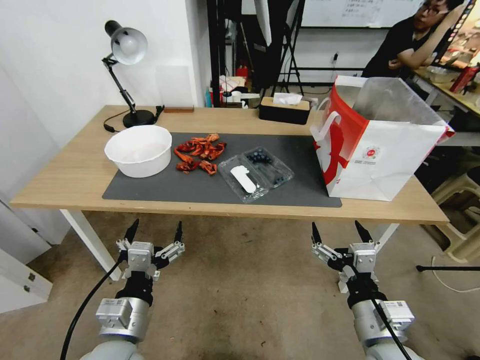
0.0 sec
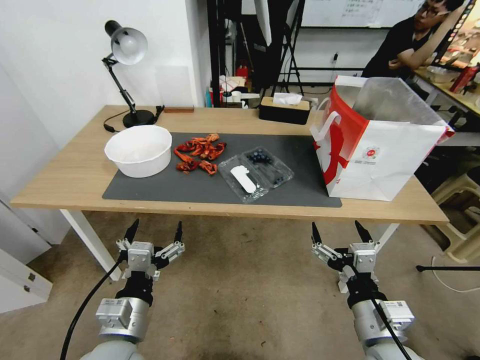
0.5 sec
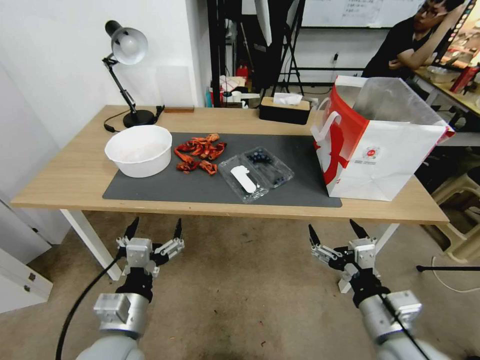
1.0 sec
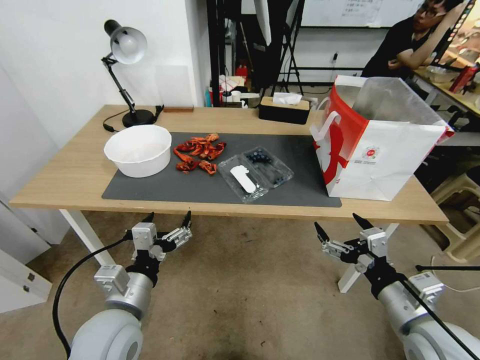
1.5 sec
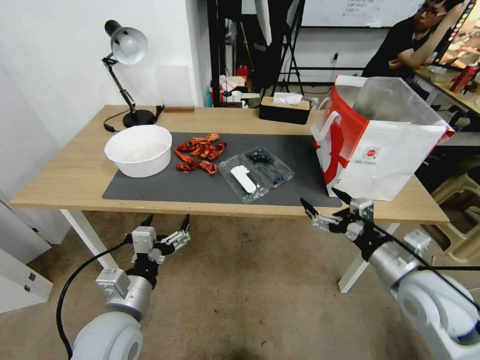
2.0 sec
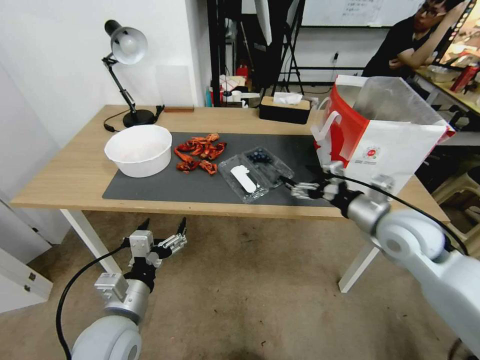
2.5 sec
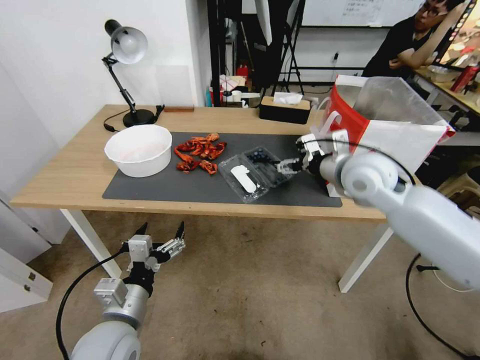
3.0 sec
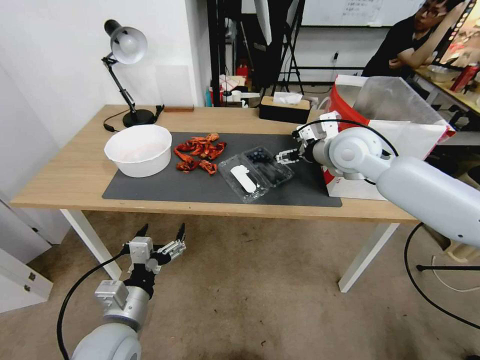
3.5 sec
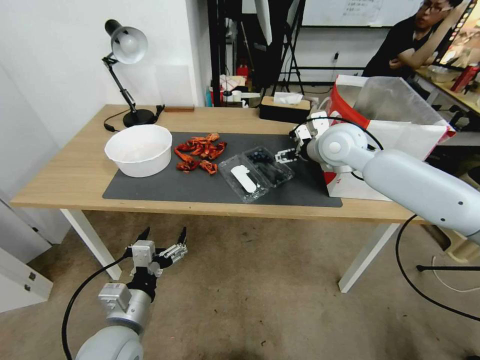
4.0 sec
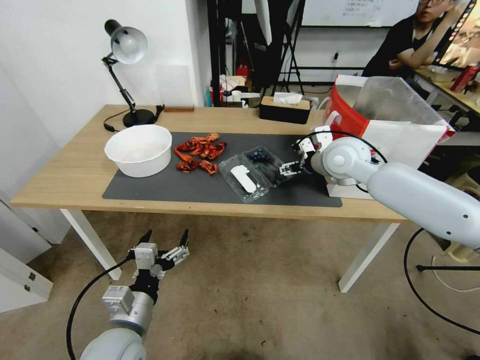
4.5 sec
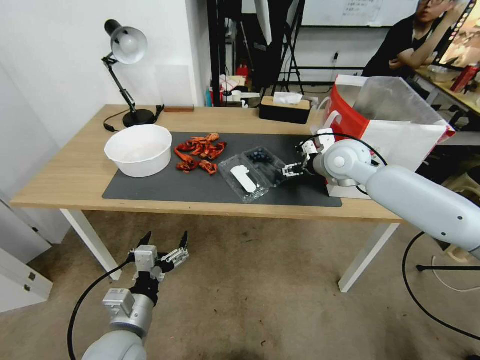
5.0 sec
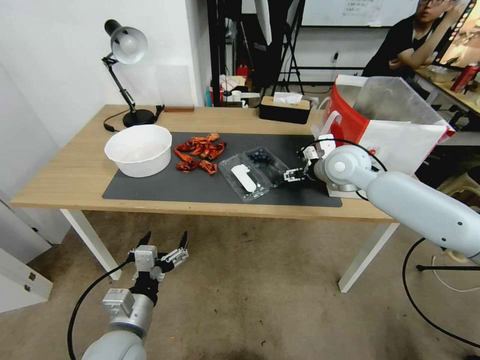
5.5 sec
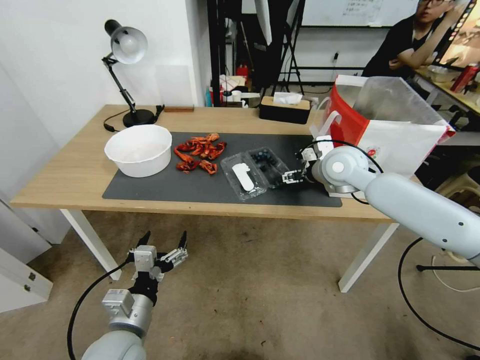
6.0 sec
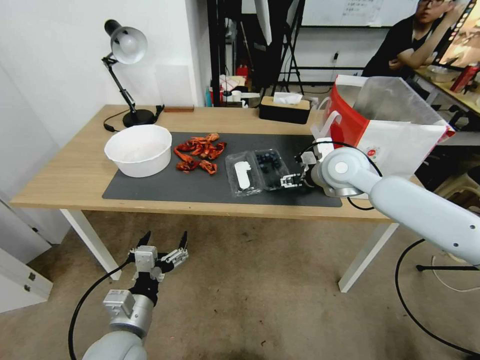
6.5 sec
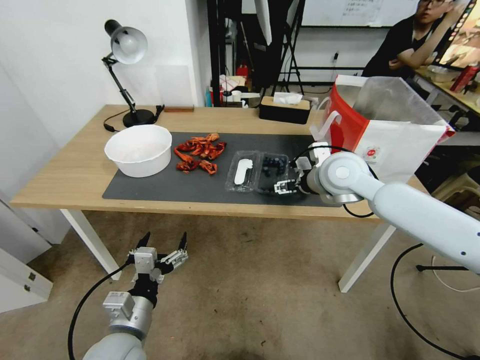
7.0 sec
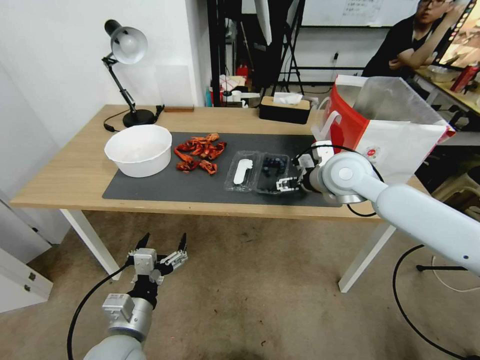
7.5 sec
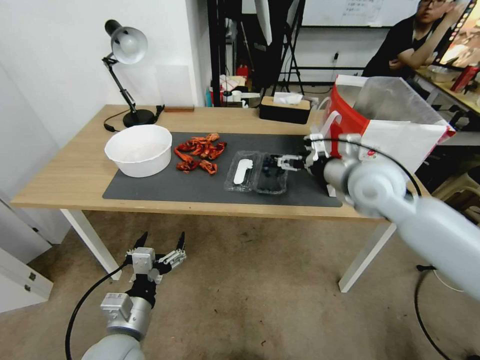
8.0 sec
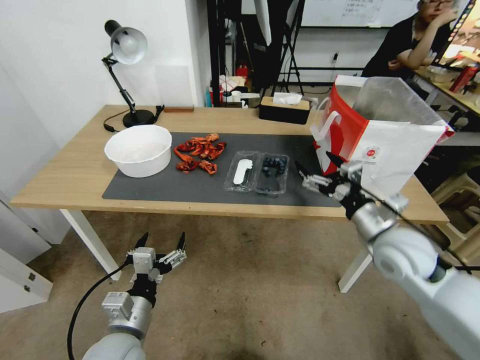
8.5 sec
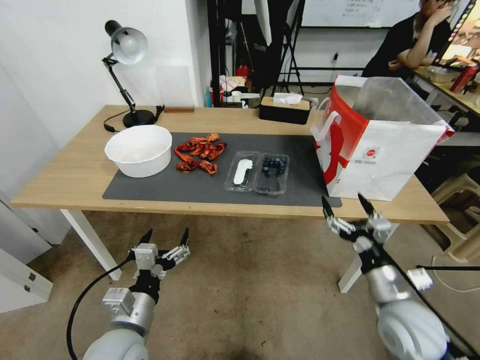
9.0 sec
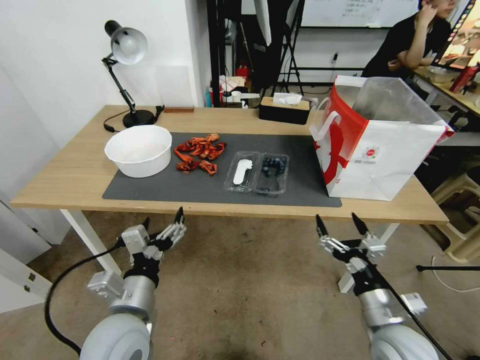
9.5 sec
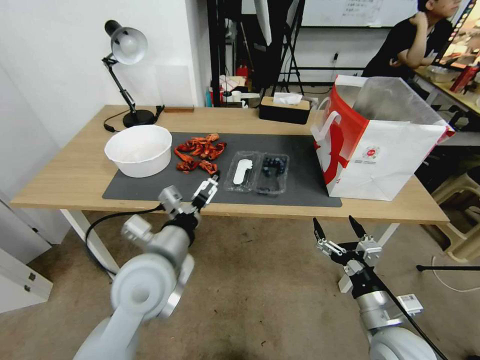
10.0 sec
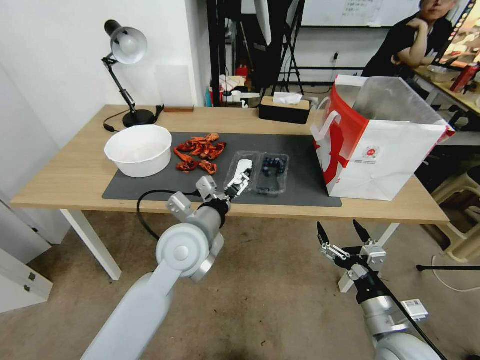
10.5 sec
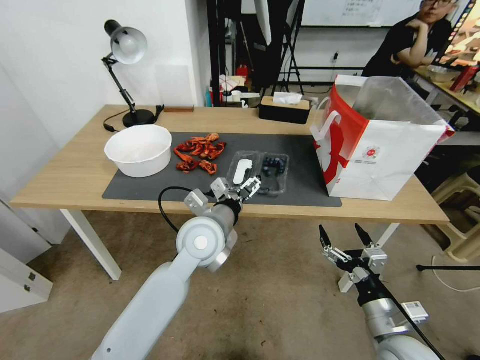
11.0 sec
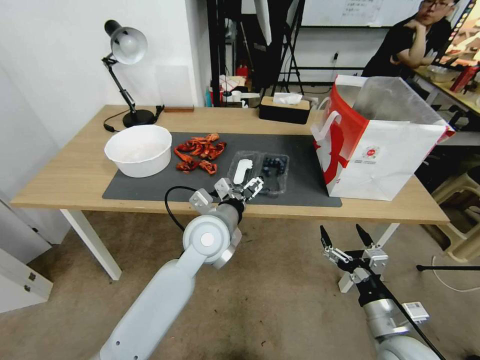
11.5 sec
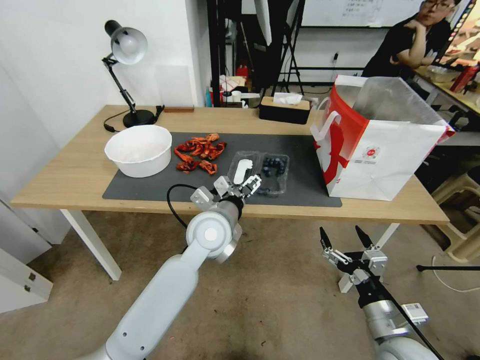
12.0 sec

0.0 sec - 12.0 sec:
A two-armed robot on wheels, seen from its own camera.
Task of the whole recording: Close the takeout container lid, then place the container into the takeout bag.
2.0 sec - 4.0 sec: The right gripper goes approximately 30 cm forward and upward.
4.0 sec - 6.0 sec: The right gripper ends up about 5 cm from where it was.
6.0 sec - 8.0 sec: The right gripper travels backward by approximately 5 cm.
8.0 sec - 10.0 sec: The right gripper moves backward and downward, about 35 cm; the left gripper travels upward, forward and to the right by approximately 15 cm.
10.0 sec - 12.0 sec: The left gripper goes approximately 15 cm forward and to the right.

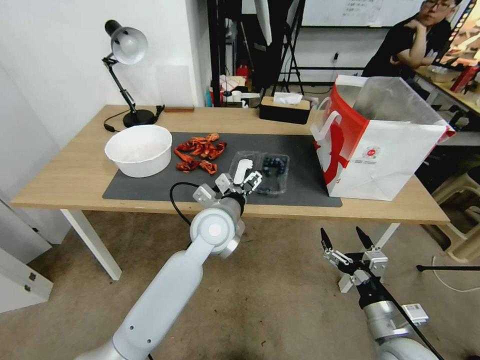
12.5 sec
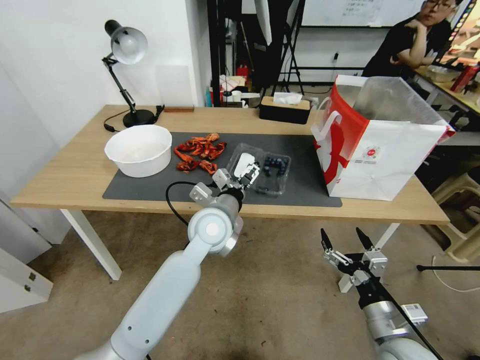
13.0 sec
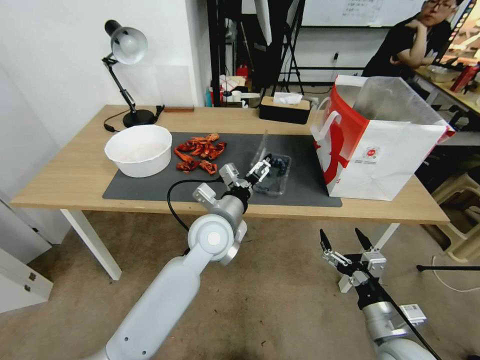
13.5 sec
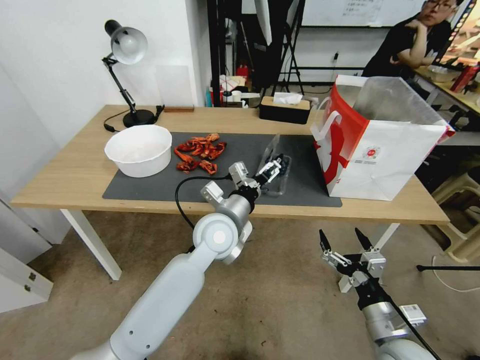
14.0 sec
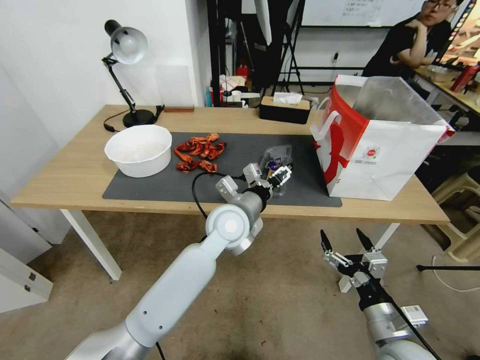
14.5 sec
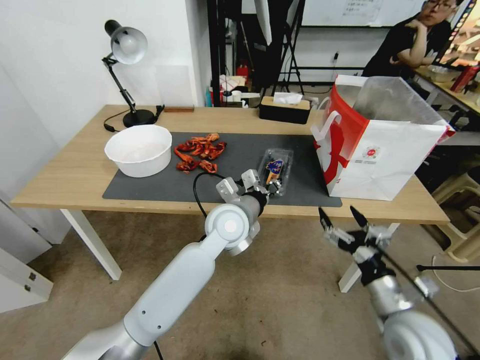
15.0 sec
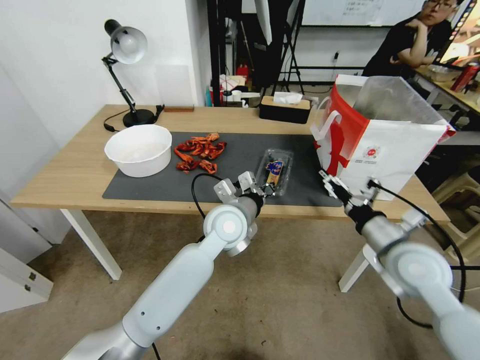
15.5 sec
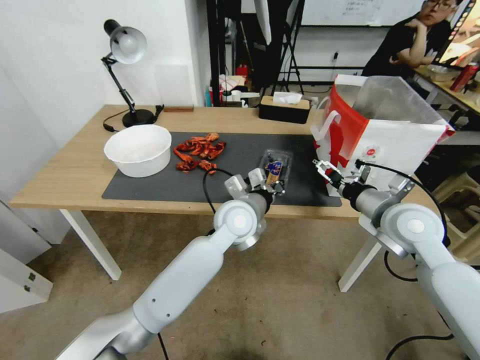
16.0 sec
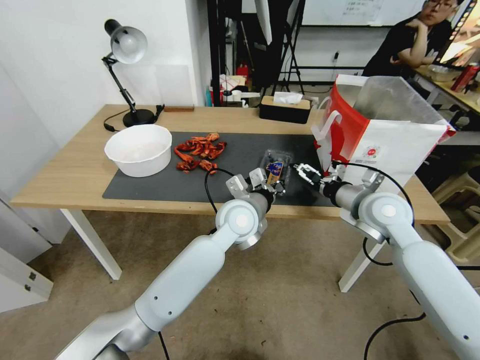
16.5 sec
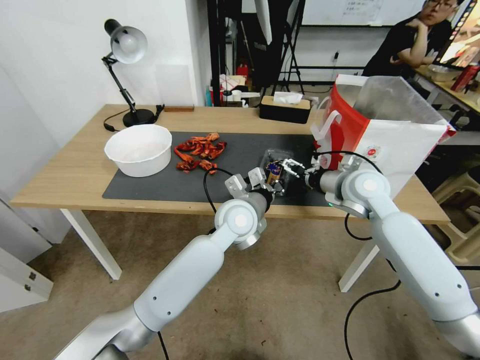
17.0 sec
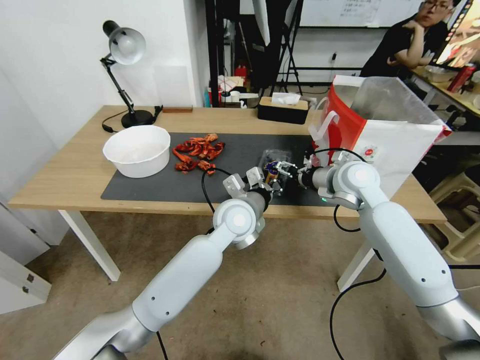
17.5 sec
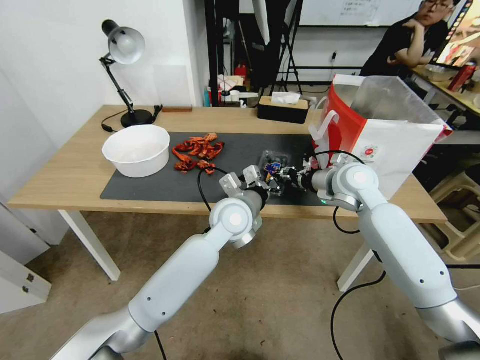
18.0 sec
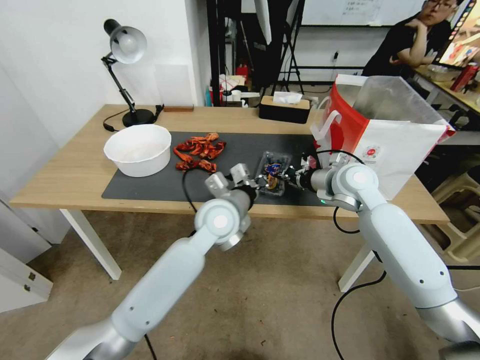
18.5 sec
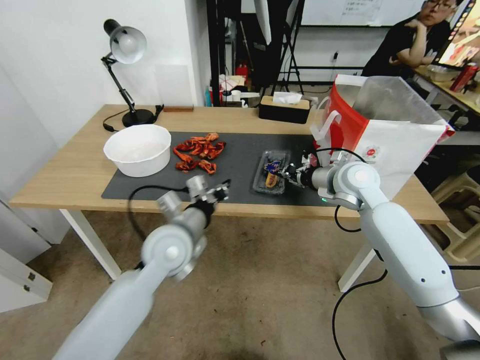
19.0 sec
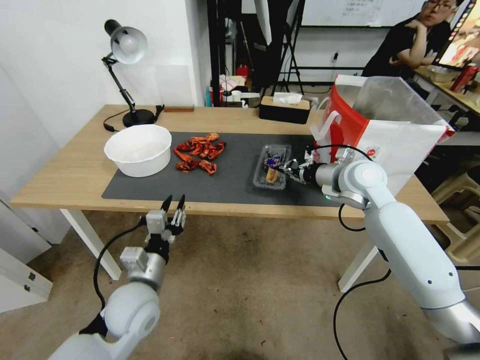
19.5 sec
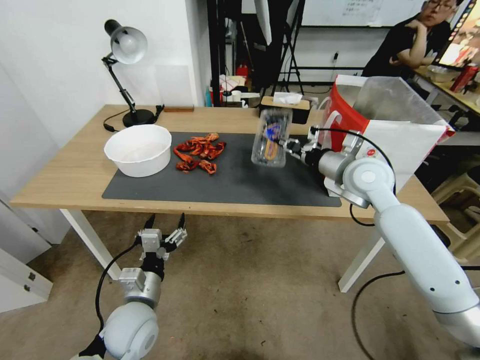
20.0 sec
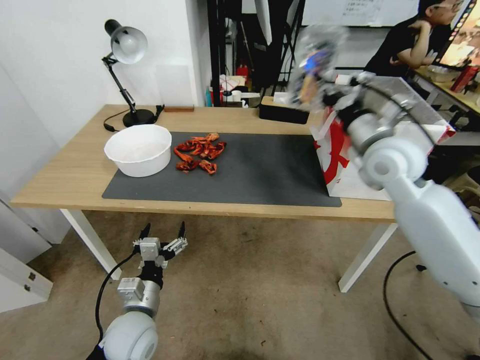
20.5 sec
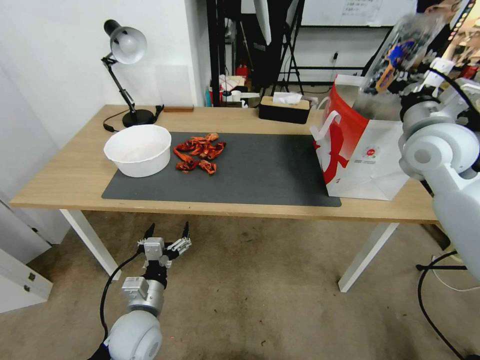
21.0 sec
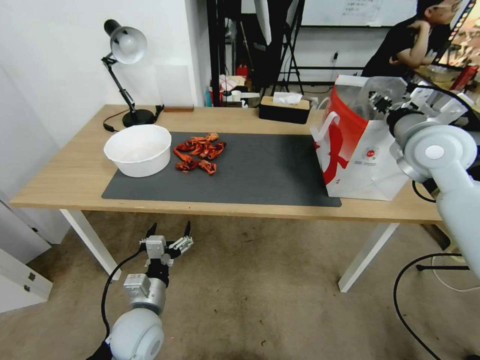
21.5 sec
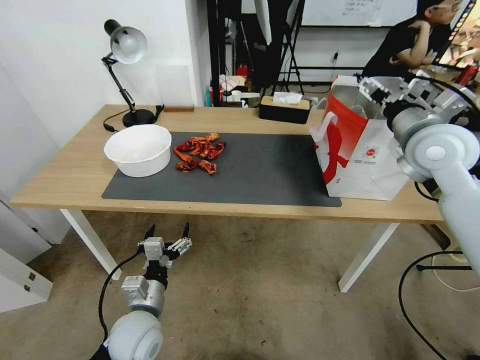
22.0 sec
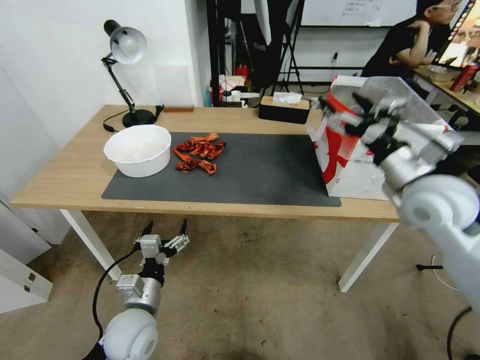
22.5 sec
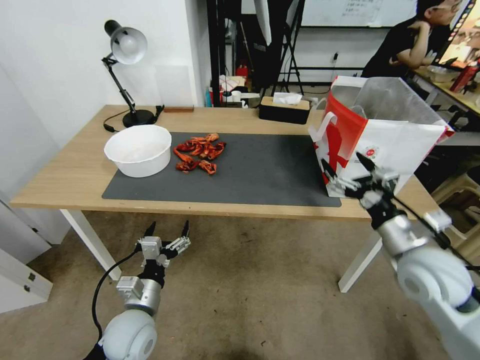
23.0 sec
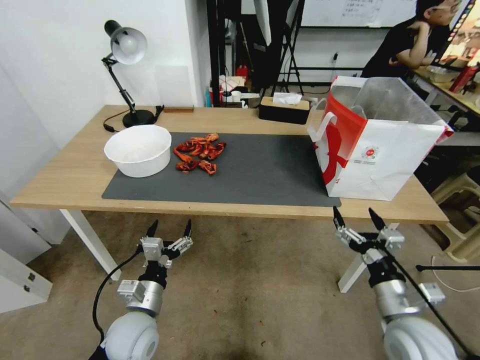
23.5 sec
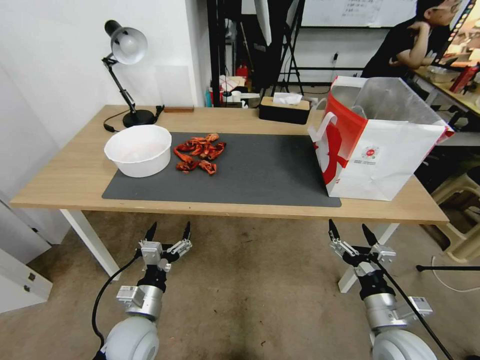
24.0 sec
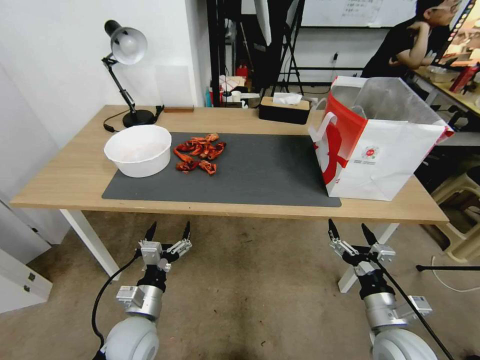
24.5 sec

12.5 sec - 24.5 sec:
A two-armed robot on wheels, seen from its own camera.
Task of the whole recording: Close the takeout container lid, then place the container into the takeout bag.
14.5 sec - 16.5 sec: The right gripper goes roughly 30 cm forward and upward; the left gripper closes up.
16.5 sec - 18.5 sec: The right gripper shifts roughly 5 cm forward, and closes.
18.5 sec - 20.5 sec: The left gripper heads backward, to the left and downward, covering roughly 30 cm, and opens its fingers; the right gripper travels upward by about 10 cm.
20.5 sec - 22.5 sec: The right gripper shifts about 10 cm backward, and opens.
22.5 sec - 24.5 sec: The right gripper moves downward and backward, approximately 30 cm.

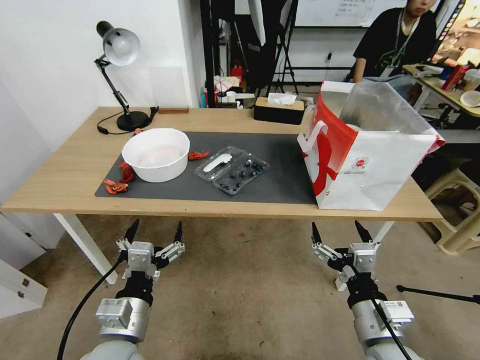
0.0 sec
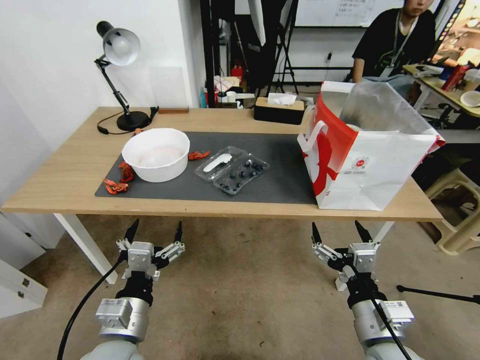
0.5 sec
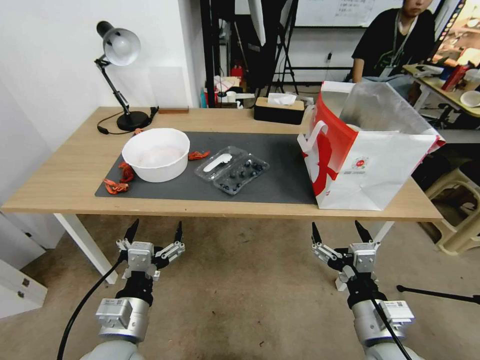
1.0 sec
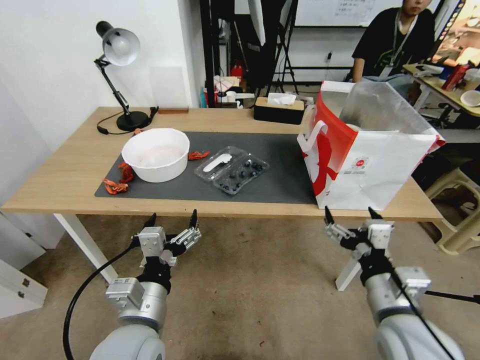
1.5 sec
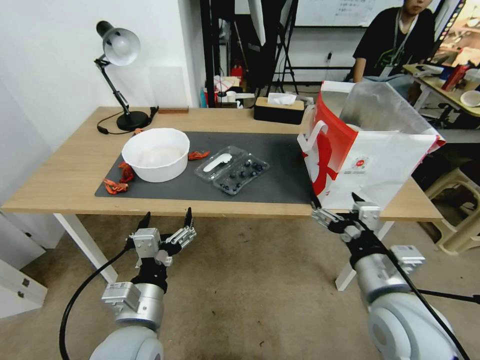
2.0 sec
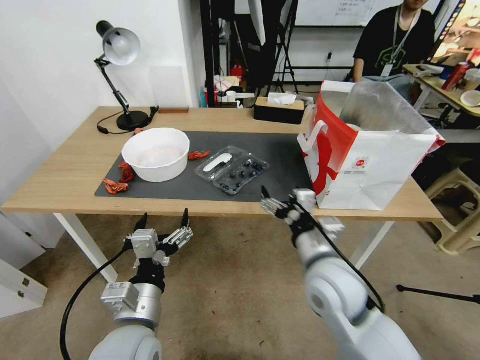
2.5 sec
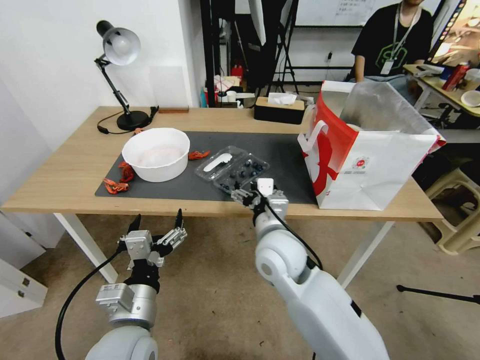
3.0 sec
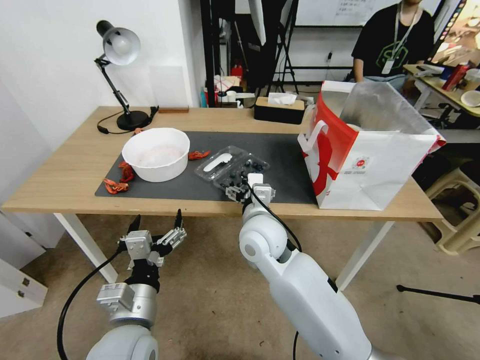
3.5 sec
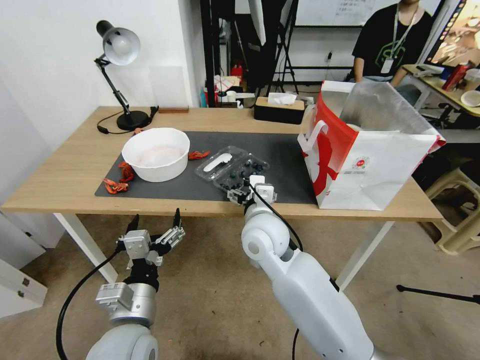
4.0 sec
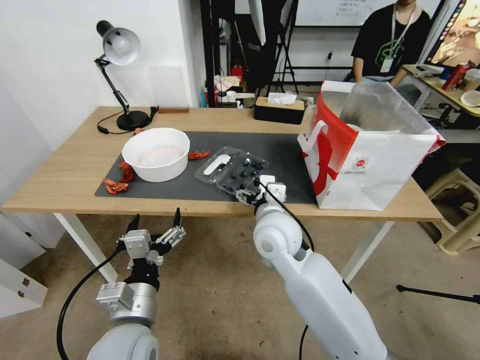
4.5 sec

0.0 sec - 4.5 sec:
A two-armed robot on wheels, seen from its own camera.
Task of the whole recording: Close the takeout container lid, then place the container into the takeout bag.
2.0 sec - 4.5 sec: The right gripper heads to the left and forward, covering about 25 cm.
